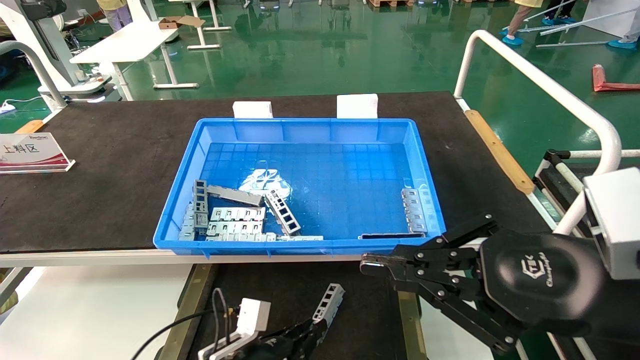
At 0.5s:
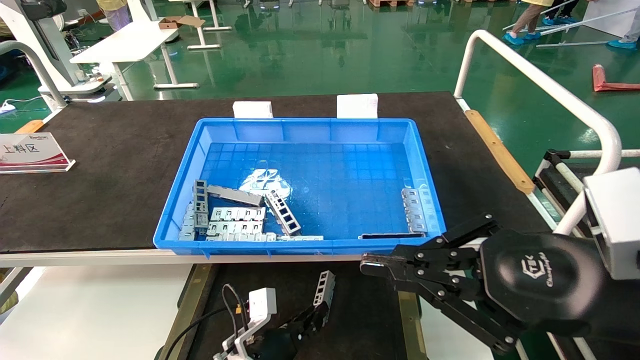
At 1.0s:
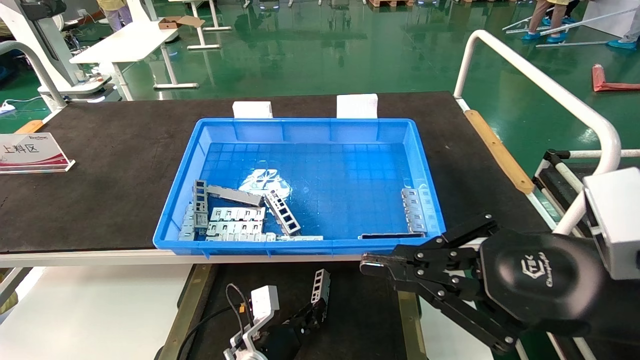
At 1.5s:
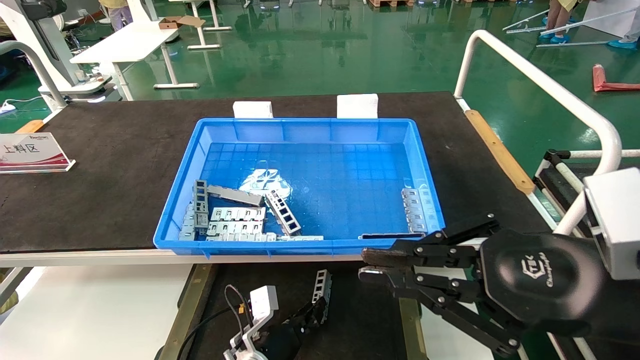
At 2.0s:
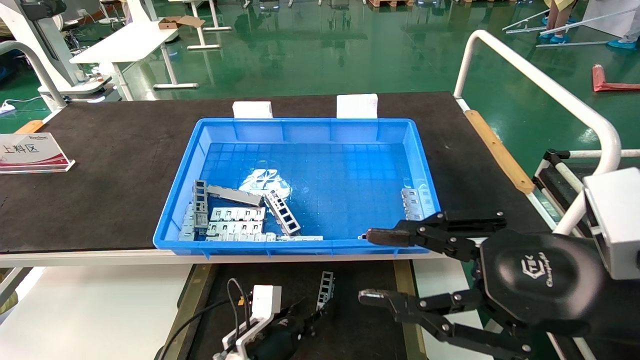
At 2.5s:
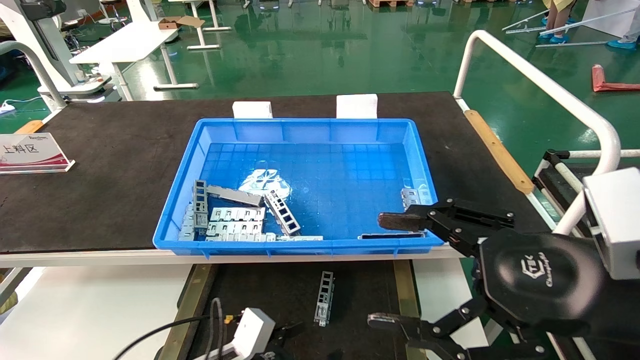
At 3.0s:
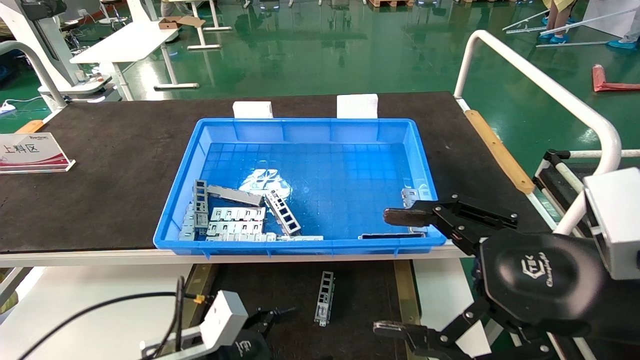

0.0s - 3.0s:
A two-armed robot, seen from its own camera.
Task of the whole recording: Grasp the part with one hand and place it on the black container.
0.0s - 1.5s: The left gripper is displaced forward by roughly 5 cm.
1.5s - 3.0s: The left gripper shifts some 20 cm backward, upward and to the left, and opens; the right gripper opens up.
